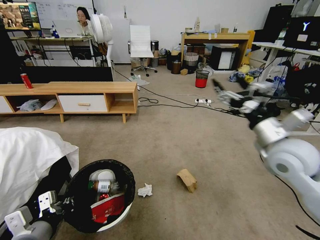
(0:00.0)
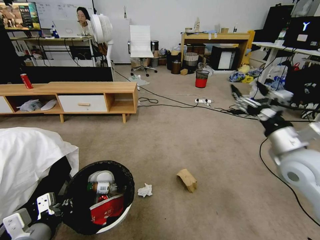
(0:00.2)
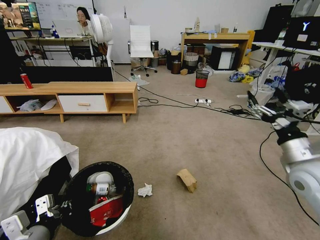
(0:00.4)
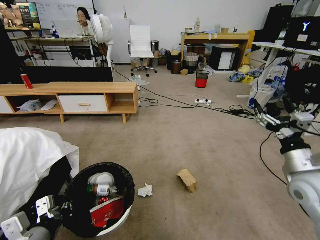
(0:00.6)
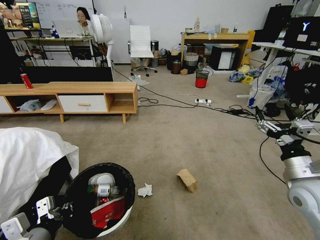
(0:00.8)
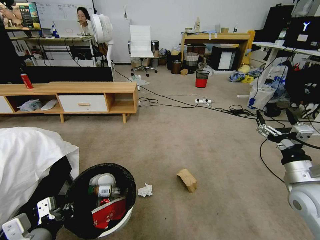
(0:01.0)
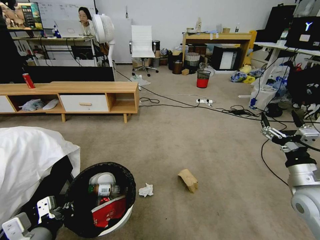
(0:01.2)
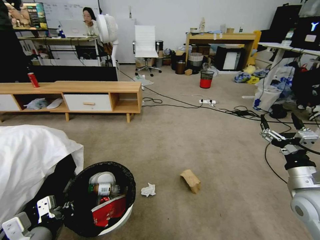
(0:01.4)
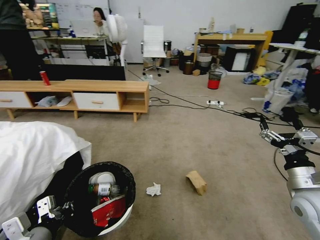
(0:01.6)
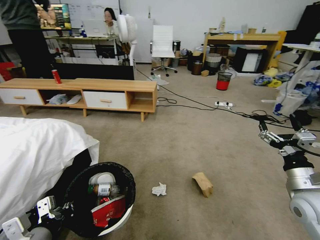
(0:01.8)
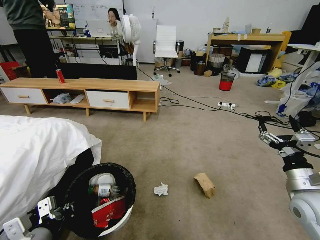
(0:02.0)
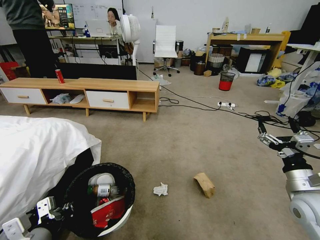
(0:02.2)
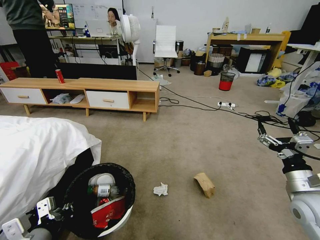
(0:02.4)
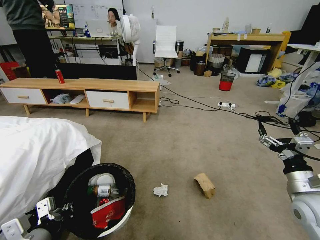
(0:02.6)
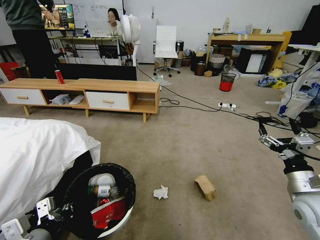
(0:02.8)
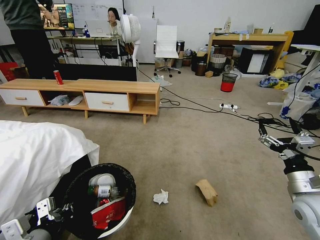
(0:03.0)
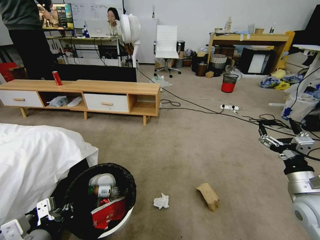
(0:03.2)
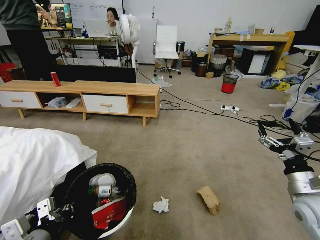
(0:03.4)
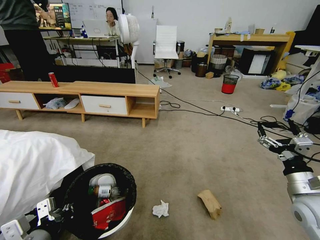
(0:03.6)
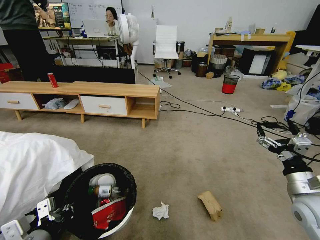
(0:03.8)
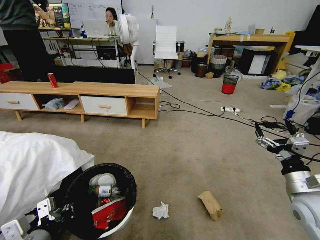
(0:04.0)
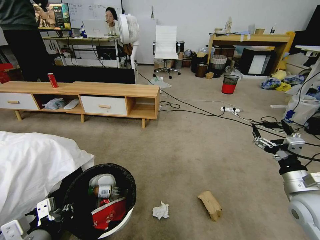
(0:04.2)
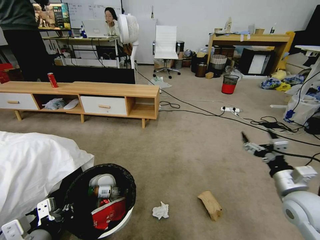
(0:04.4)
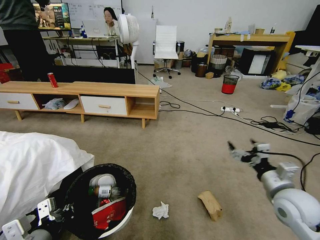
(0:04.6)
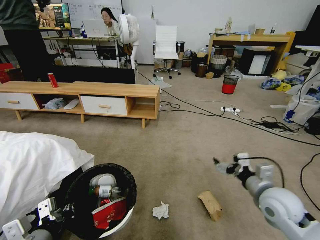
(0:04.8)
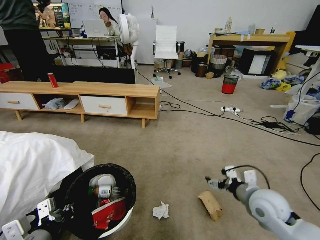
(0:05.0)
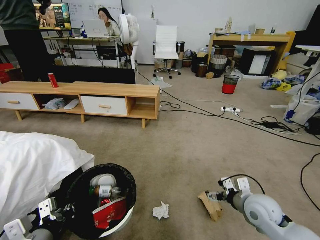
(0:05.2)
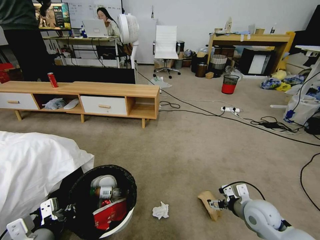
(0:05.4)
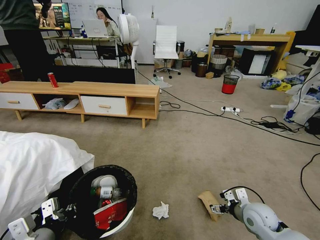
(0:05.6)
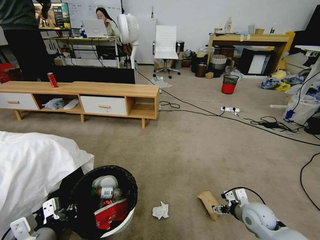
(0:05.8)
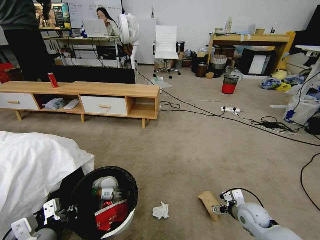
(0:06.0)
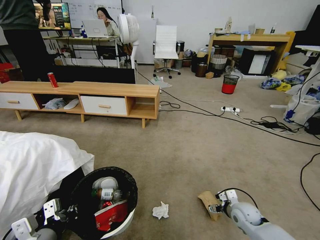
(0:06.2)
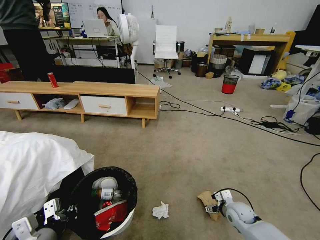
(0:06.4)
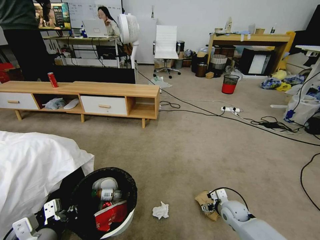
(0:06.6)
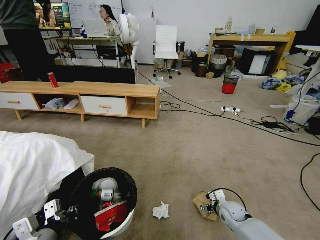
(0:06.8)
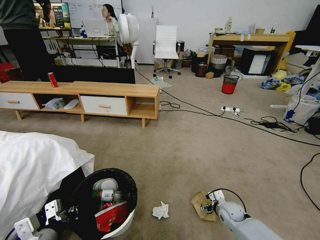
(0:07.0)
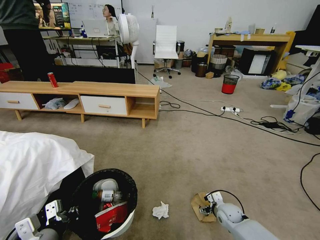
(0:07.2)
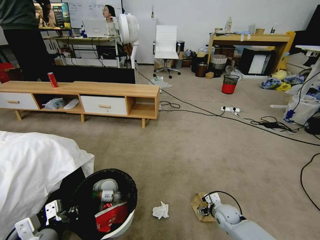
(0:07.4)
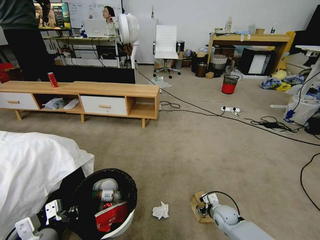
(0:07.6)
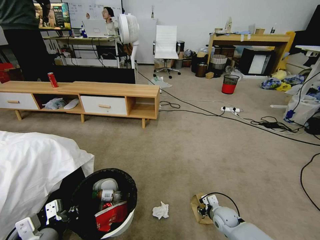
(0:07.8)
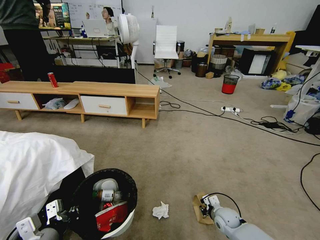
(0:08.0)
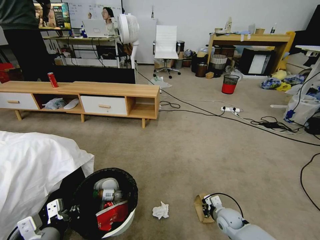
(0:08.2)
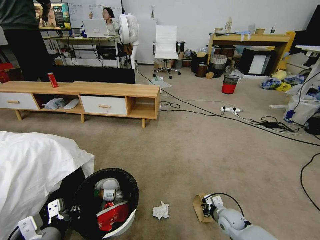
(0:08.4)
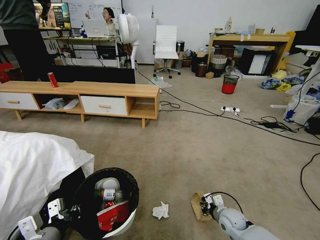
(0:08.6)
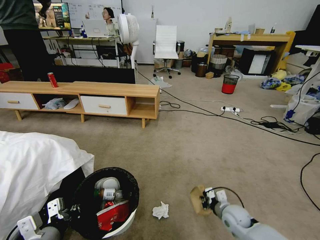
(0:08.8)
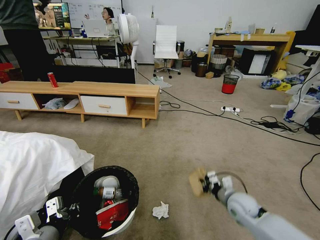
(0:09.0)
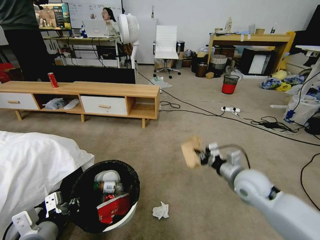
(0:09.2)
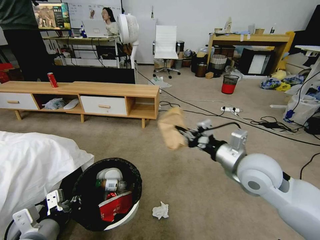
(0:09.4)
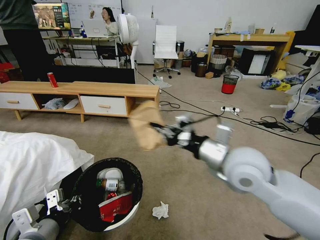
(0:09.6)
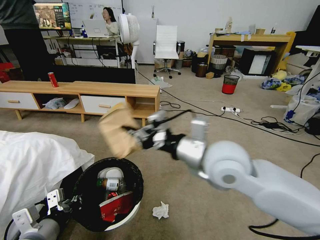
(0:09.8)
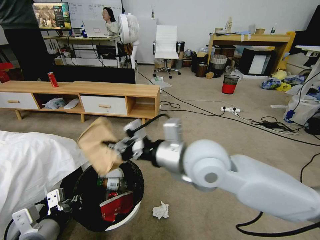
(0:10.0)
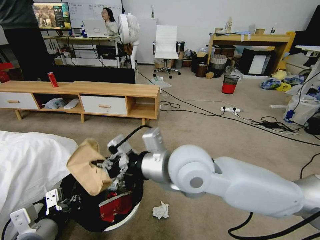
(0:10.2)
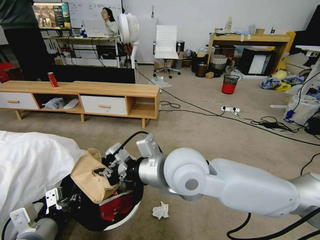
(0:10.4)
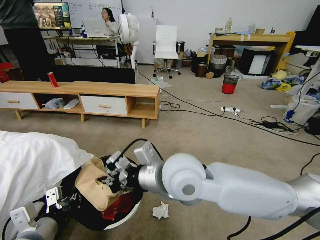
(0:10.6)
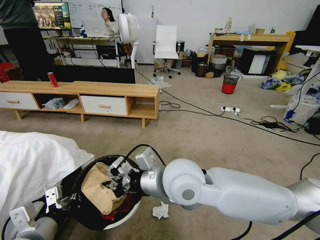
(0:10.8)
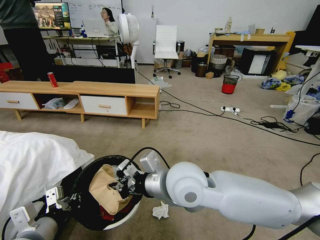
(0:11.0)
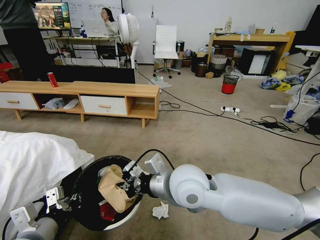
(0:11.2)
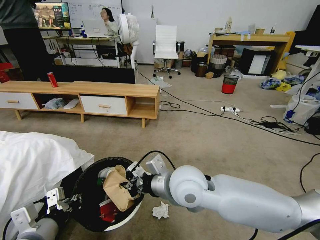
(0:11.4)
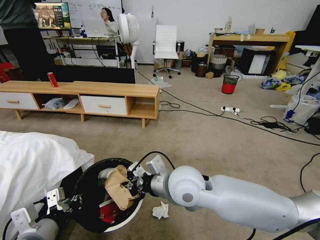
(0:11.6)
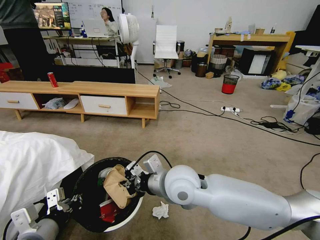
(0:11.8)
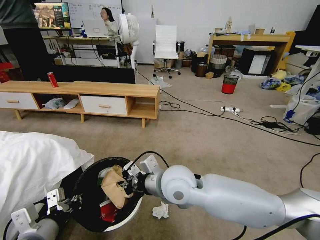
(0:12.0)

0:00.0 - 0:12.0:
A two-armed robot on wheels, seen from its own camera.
Task of the whole recording: Pick up the trash bin and place the garbage on the floor into it.
0:00.0 - 0:01.6: The right gripper goes approximately 20 cm downward, to the right and backward.
0:04.4 - 0:06.0: The right gripper goes some 15 cm downward.
0:06.0 - 0:07.6: The right gripper travels downward and to the left by about 10 cm.
0:07.6 - 0:09.0: The right gripper is displaced upward by some 15 cm, and closes its fingers.
0:09.0 - 0:10.4: The right gripper is displaced upward and to the left by some 40 cm.
0:10.4 - 0:12.0: The right gripper goes roughly 10 cm downward.

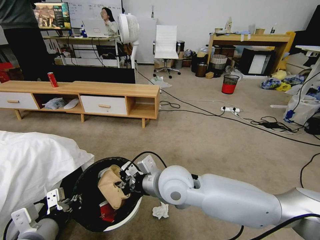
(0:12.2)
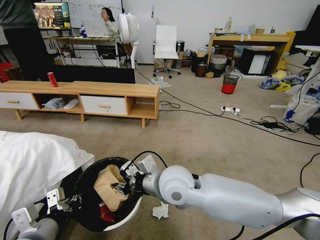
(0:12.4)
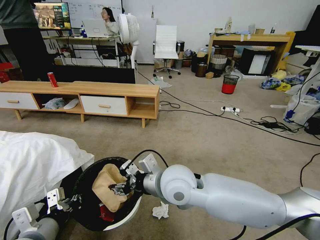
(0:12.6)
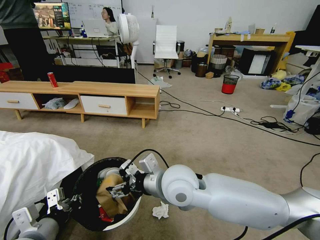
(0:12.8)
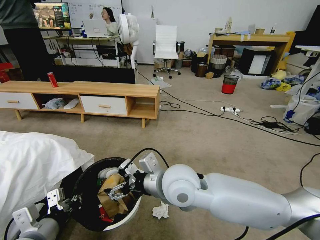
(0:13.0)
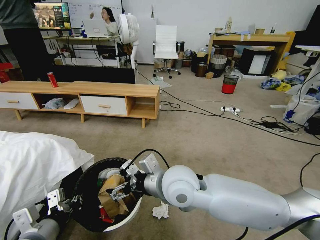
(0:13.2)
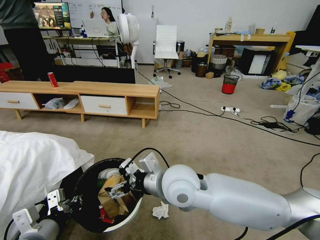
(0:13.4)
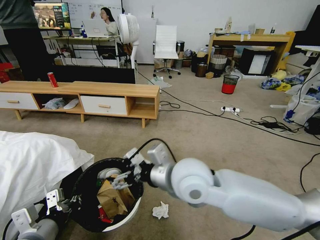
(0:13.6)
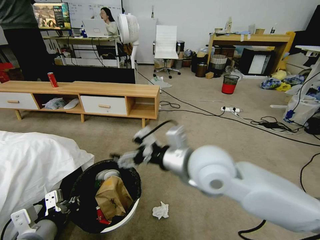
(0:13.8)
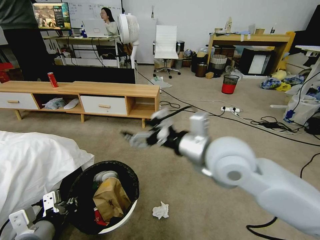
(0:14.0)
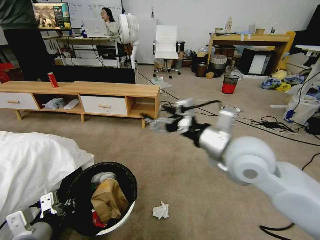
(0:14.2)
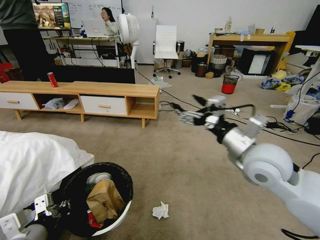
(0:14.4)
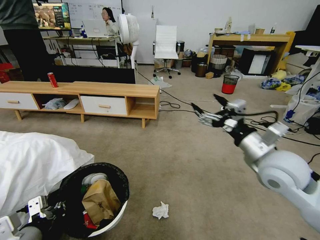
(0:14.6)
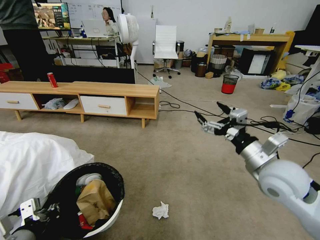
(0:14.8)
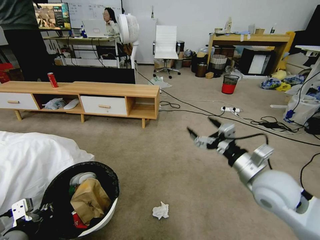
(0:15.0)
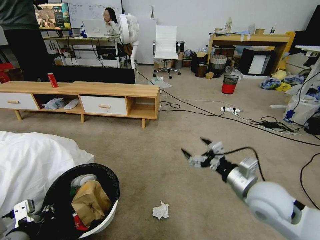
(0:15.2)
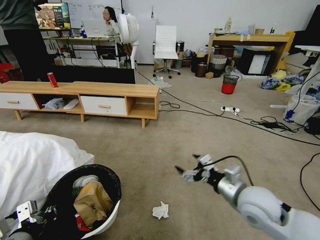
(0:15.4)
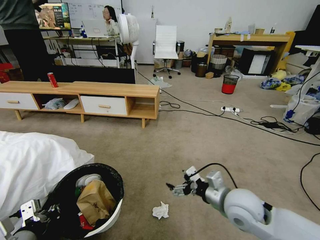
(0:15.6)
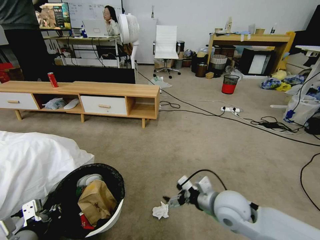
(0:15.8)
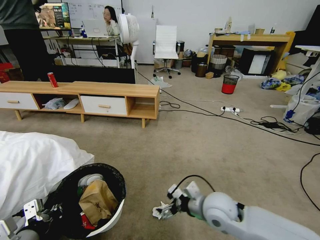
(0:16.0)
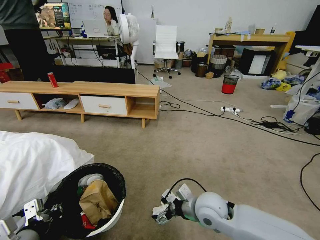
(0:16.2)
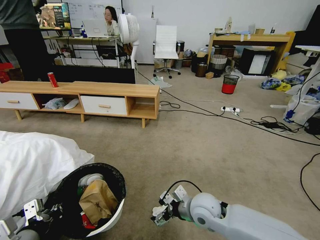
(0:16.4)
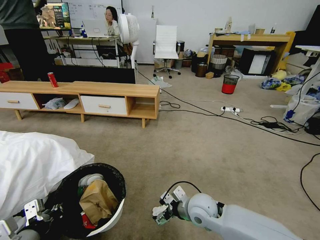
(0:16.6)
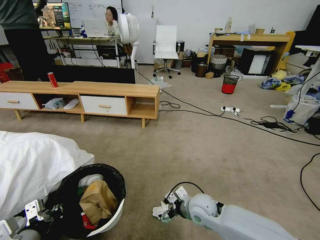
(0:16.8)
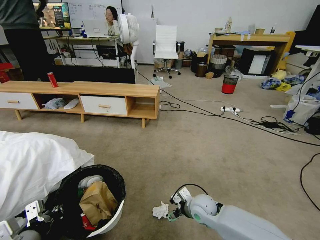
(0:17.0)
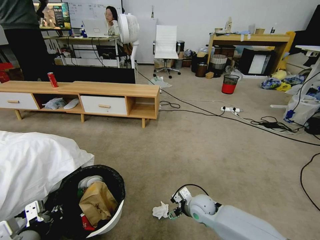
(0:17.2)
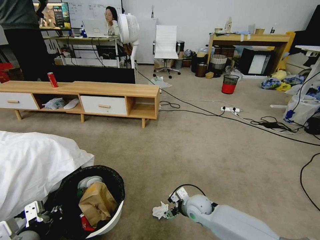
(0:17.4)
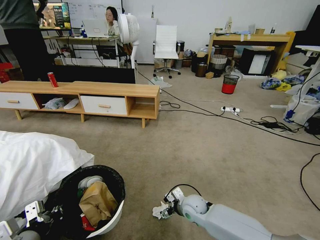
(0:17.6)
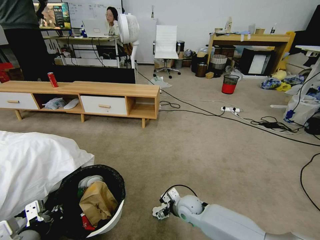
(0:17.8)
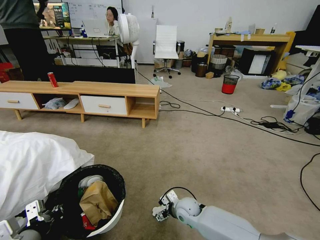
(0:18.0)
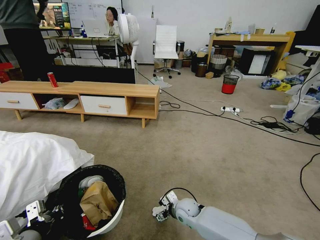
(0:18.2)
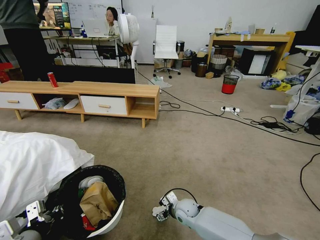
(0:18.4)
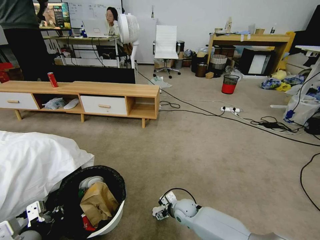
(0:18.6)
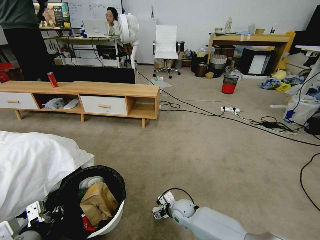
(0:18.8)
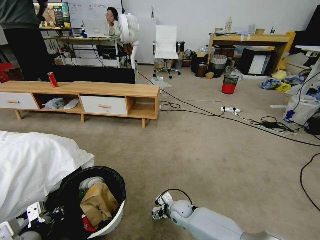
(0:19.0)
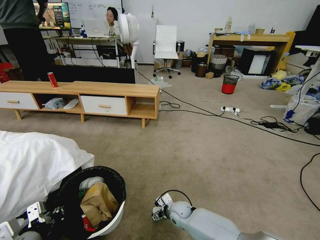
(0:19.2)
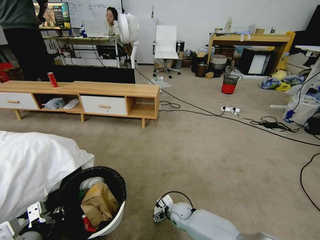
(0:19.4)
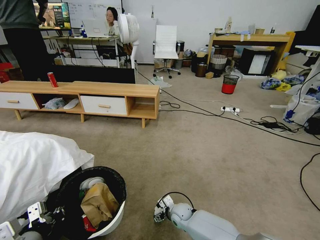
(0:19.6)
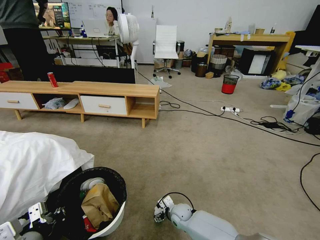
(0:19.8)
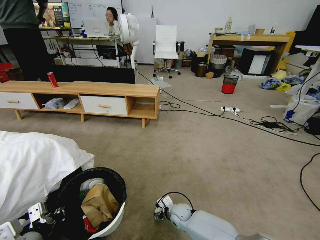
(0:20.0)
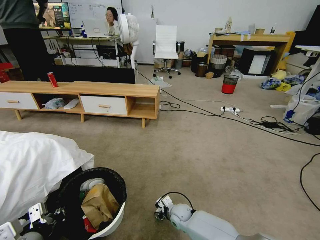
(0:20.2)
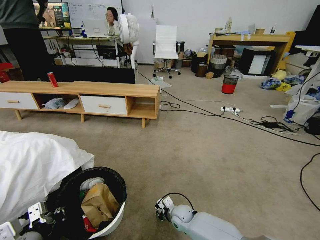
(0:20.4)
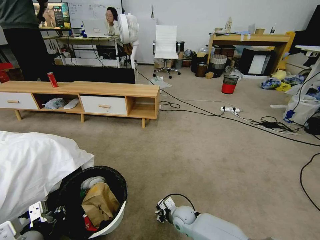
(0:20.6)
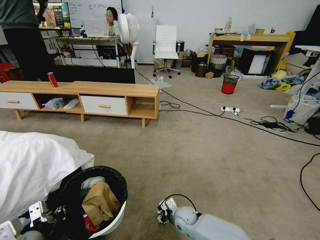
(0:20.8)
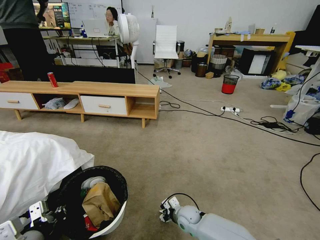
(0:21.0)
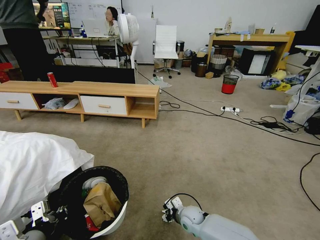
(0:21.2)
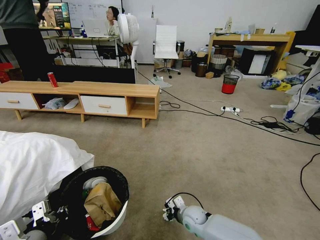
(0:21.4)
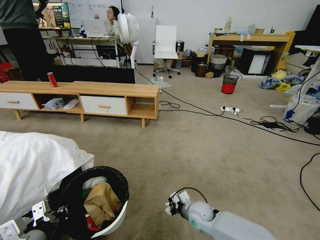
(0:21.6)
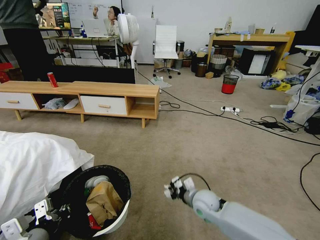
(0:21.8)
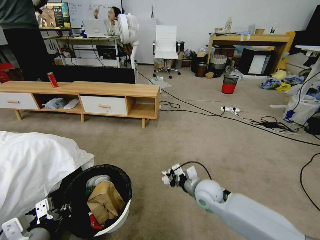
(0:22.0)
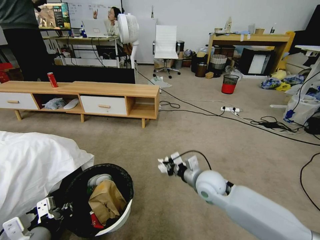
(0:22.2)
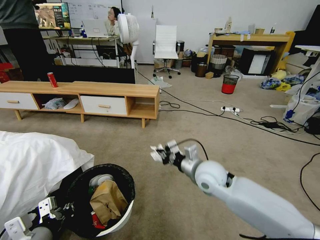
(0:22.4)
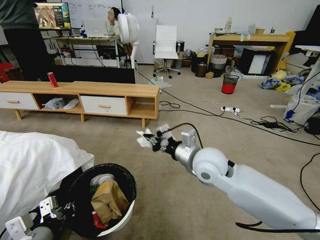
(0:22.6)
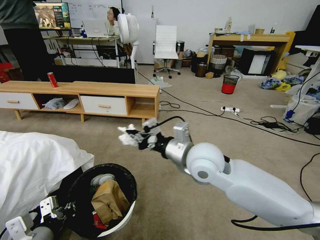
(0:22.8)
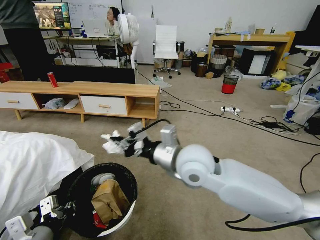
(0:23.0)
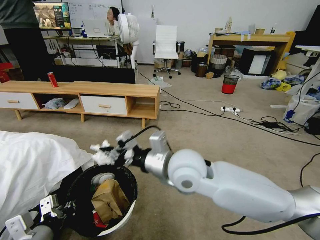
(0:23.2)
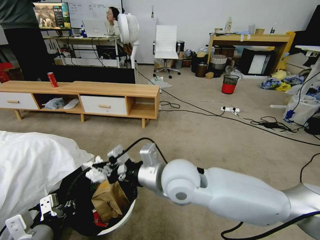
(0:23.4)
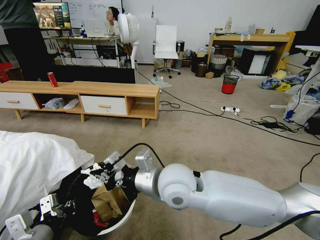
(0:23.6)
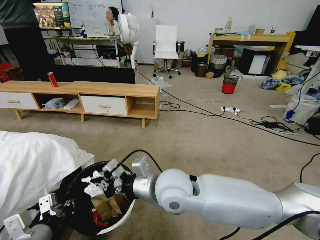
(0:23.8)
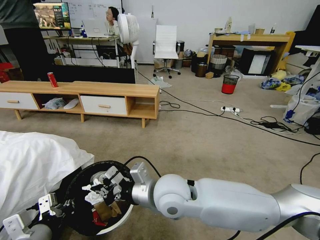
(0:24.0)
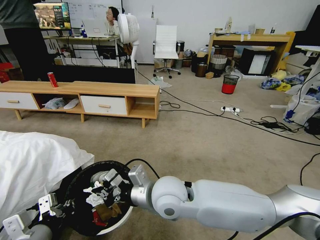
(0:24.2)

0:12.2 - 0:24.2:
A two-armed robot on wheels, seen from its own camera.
Task of the whole recording: Pick up the trash bin and place the garbage on the floor into it.
0:12.2 - 0:13.8: The right gripper is displaced upward and to the right by about 10 cm, and opens its fingers.
0:13.8 - 0:15.2: The right gripper shifts approximately 20 cm to the right and downward.
0:15.2 - 0:16.6: The right gripper is displaced to the left and downward by about 20 cm.
0:16.6 - 0:18.2: The right gripper is displaced downward by about 15 cm.
0:18.2 - 0:19.8: The right gripper heads downward, covering roughly 5 cm.
0:19.8 - 0:21.2: The right gripper changes place by roughly 5 cm, and closes up.
0:21.2 - 0:22.6: The right gripper travels upward by approximately 35 cm.
0:22.6 - 0:24.2: The right gripper is displaced to the left and backward by approximately 15 cm.
